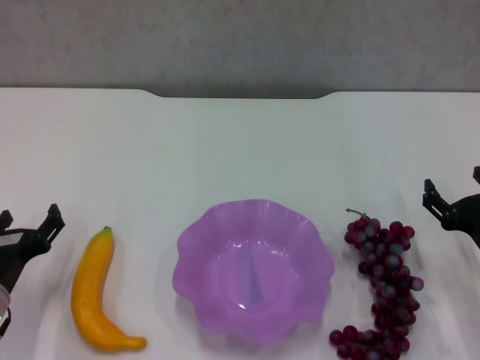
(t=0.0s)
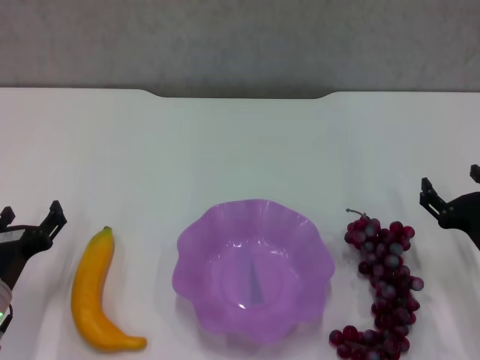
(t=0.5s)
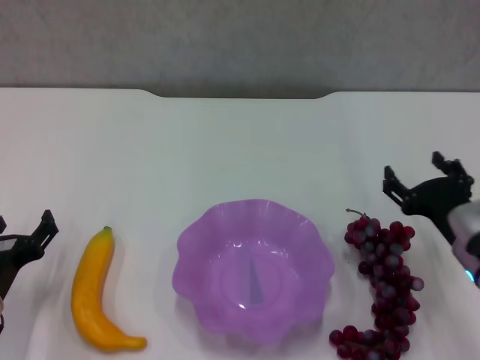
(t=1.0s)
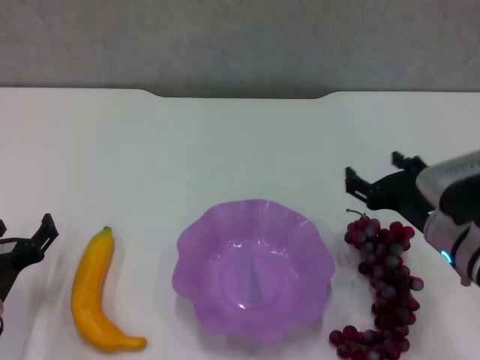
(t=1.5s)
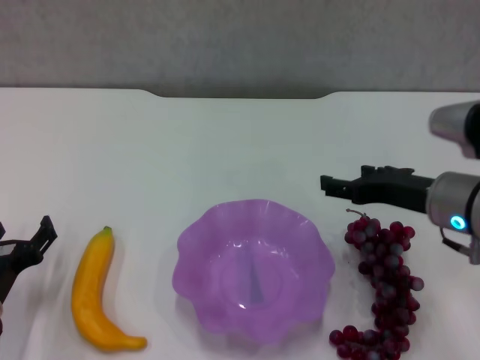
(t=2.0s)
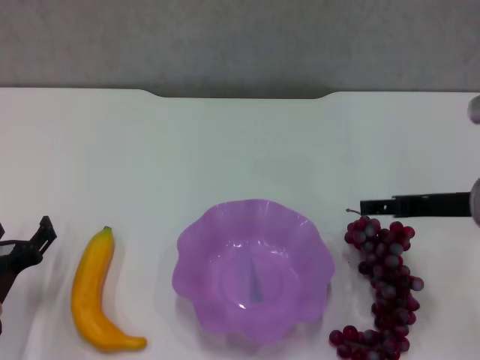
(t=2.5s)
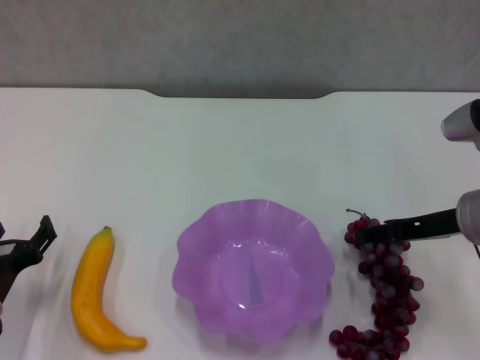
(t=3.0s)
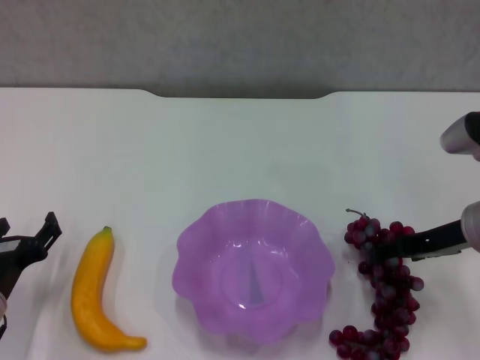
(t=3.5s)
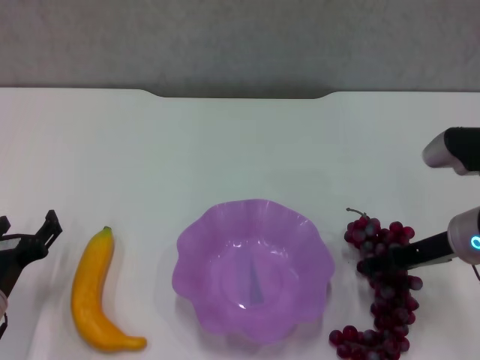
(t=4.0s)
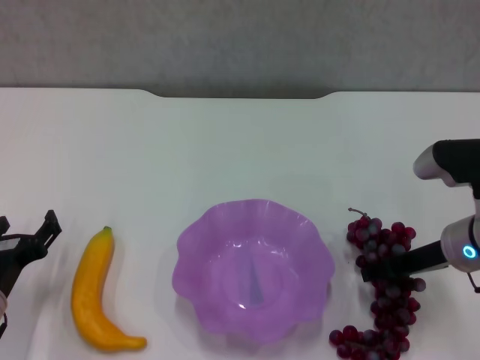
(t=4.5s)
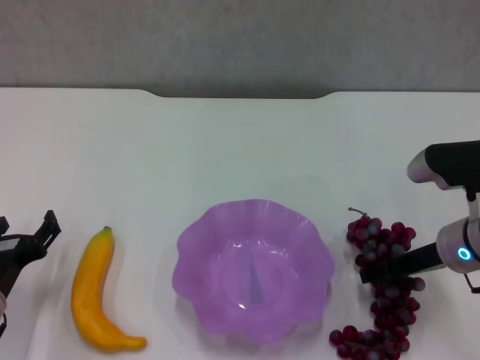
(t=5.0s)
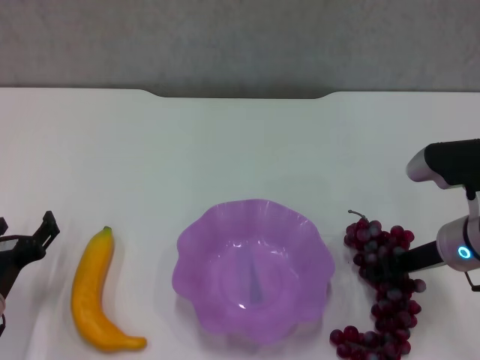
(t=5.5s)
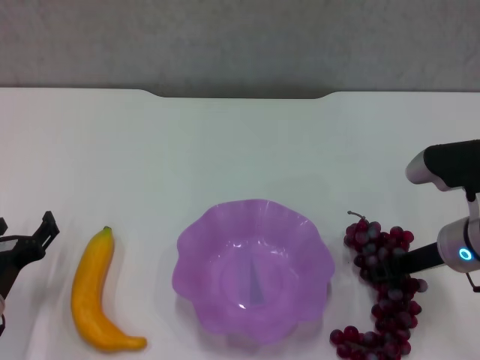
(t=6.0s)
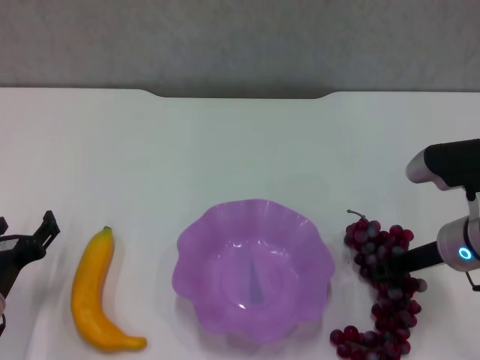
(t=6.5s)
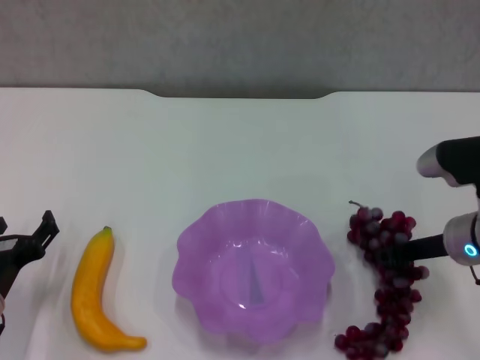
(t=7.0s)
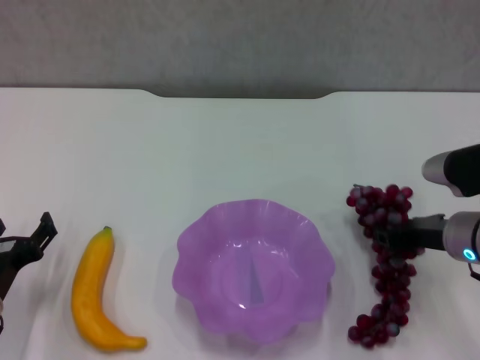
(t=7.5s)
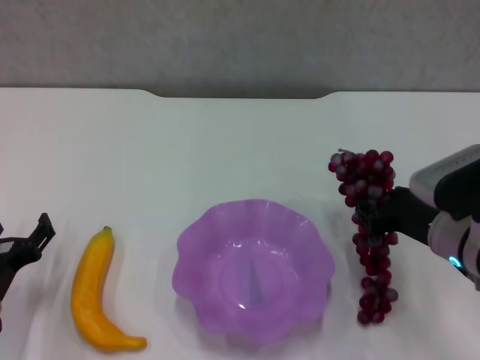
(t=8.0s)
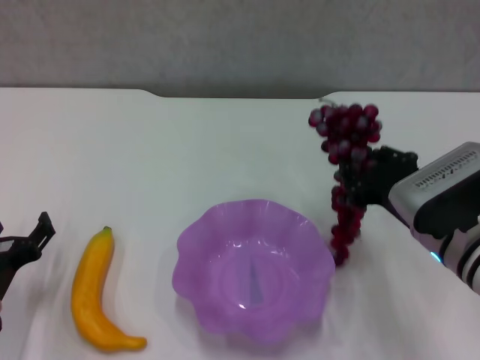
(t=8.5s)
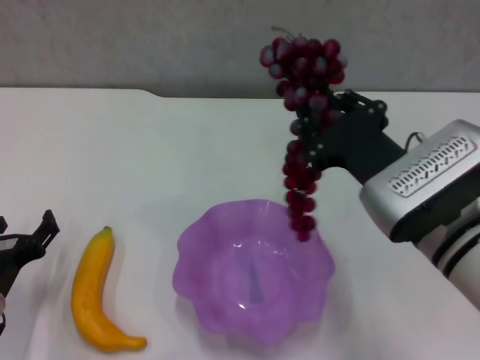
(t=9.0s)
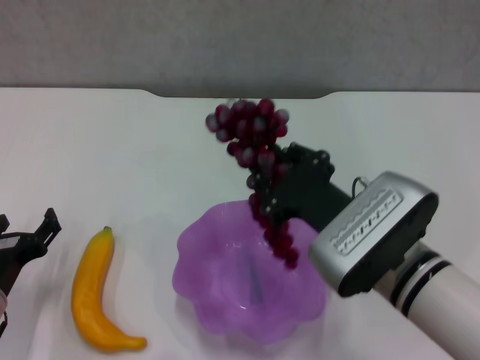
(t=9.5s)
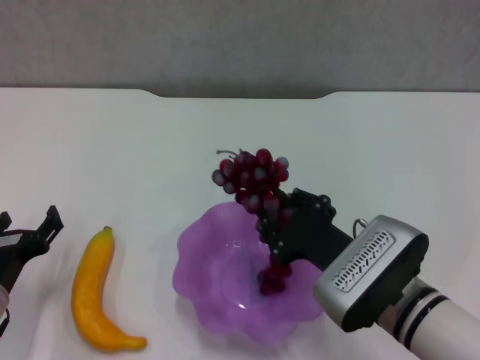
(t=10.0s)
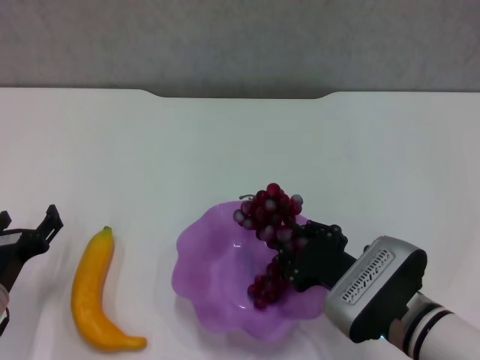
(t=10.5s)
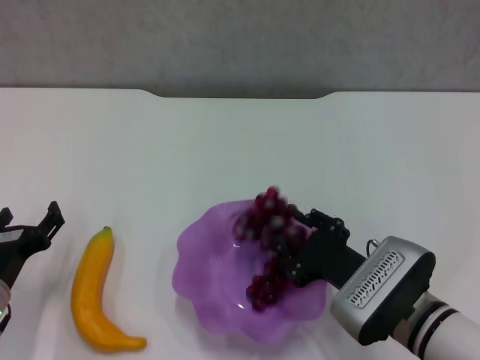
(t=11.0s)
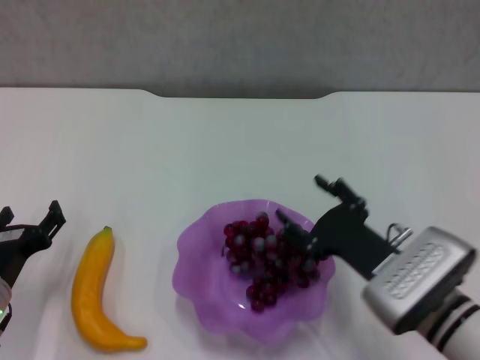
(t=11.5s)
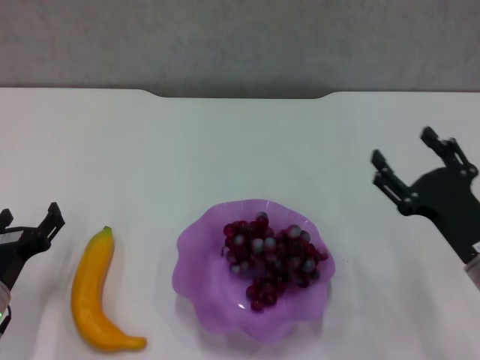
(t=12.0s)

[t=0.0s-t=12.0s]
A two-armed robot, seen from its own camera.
Step, t=0.0s to t=5.5s: Grasp the grape with right gripper.
Step, t=6.0s to t=11.5s: Place the grape in the purple plate with right gripper.
t=0.0s to t=2.0s: The right gripper goes some 15 cm upward and to the left.
t=2.0s to t=4.0s: The right gripper ends up about 5 cm from where it was.
t=4.0s to t=6.0s: The right gripper closes.
t=8.0s to t=10.0s: The right gripper shifts roughly 10 cm to the left and backward.
t=10.0s to t=12.0s: The right gripper travels to the right by roughly 10 cm, and opens its fingers.

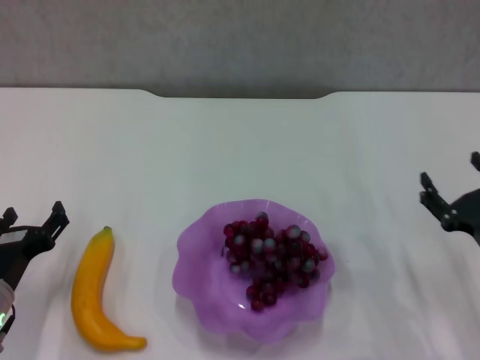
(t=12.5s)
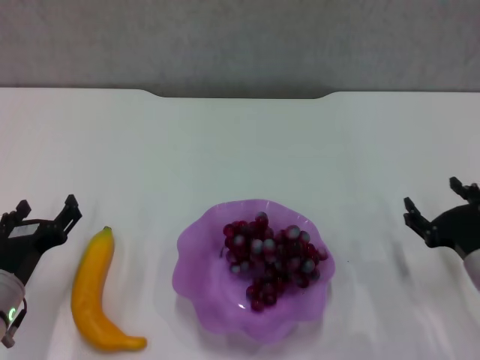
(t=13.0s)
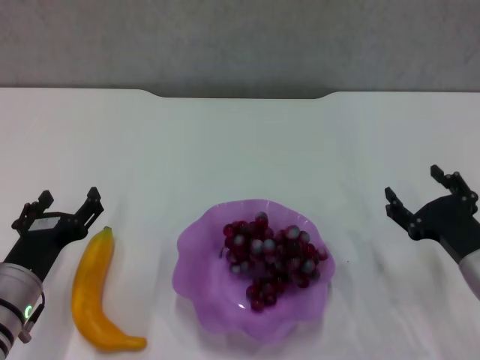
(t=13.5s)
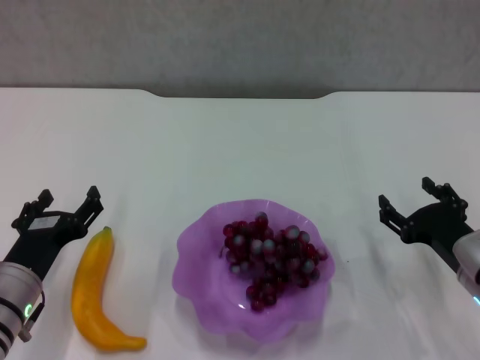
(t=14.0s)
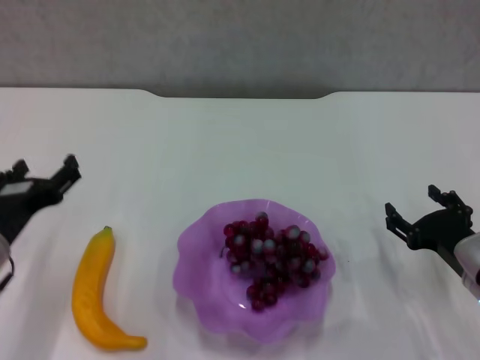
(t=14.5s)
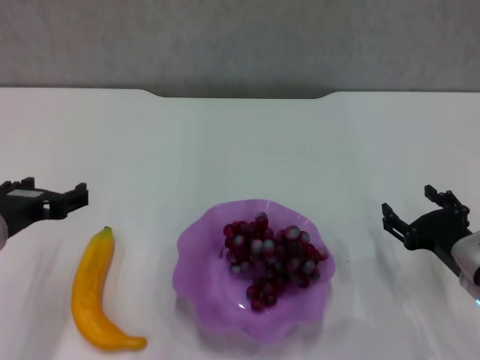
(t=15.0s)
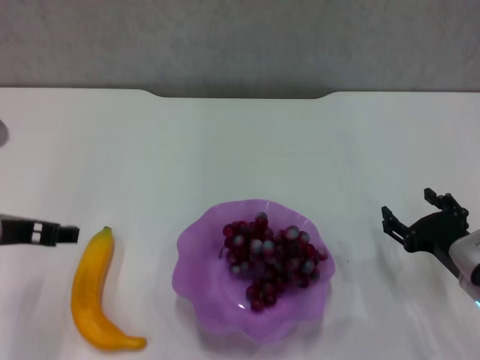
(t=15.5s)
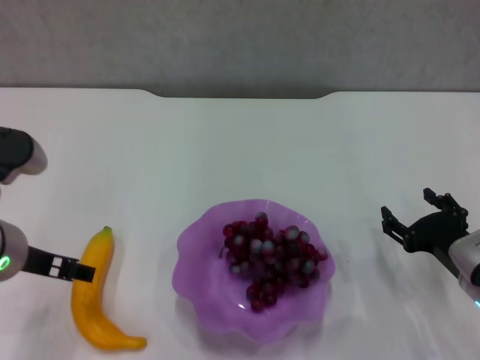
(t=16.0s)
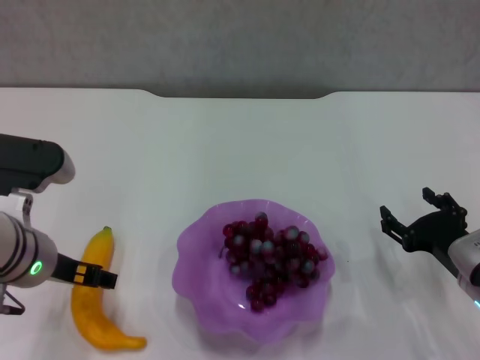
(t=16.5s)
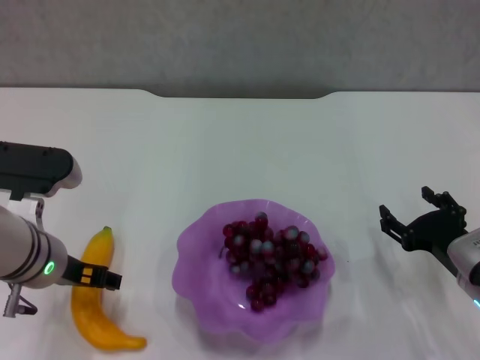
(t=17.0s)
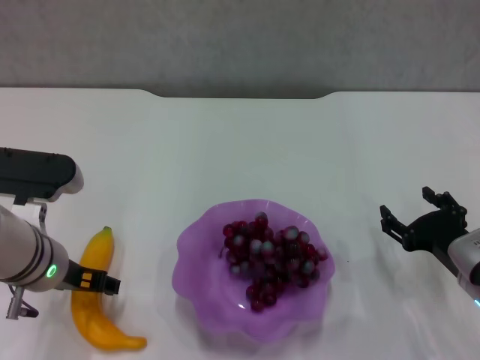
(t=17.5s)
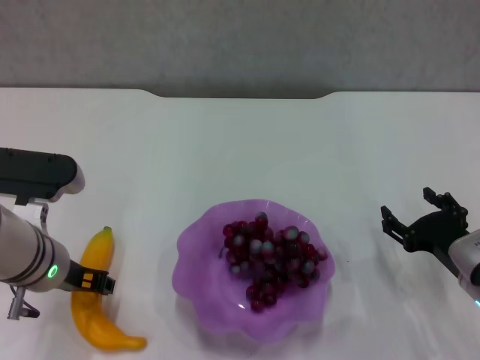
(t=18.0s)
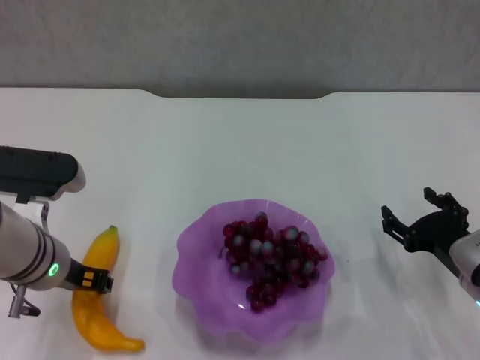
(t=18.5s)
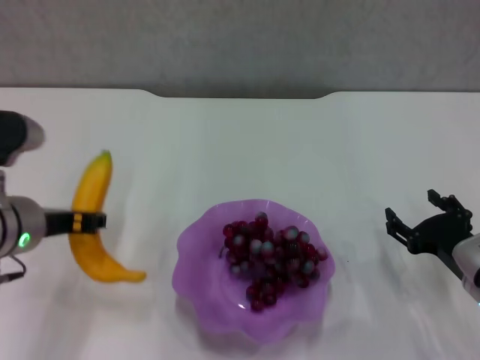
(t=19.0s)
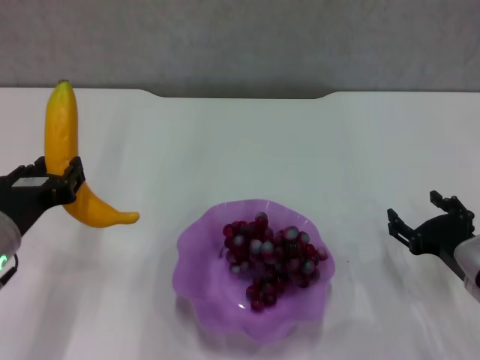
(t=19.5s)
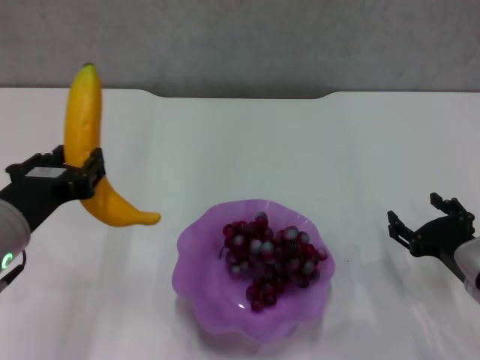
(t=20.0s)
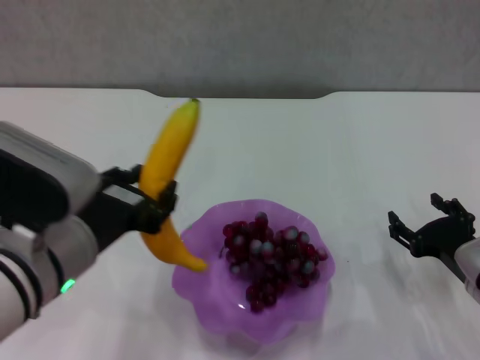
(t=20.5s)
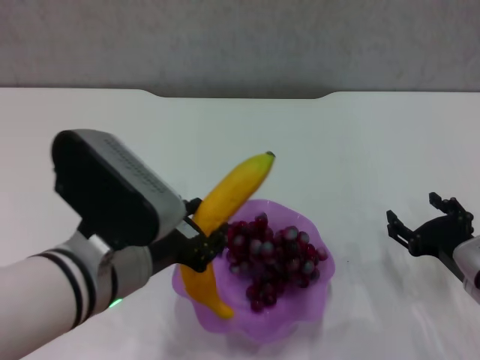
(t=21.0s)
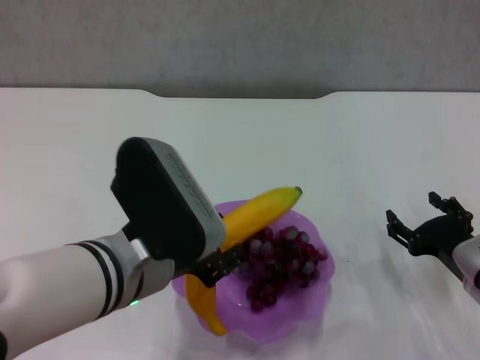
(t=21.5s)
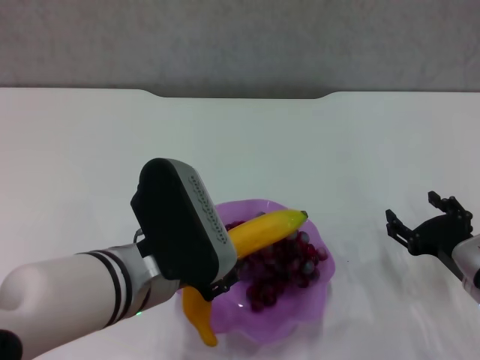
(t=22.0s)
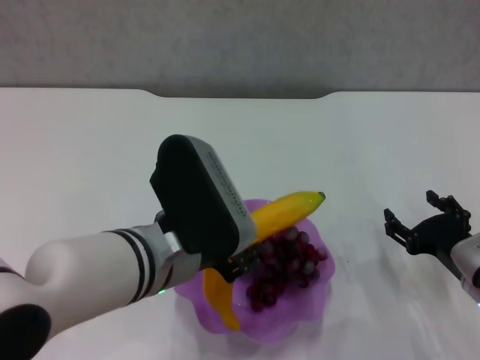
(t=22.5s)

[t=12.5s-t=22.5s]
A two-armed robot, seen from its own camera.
Step, t=12.5s to t=18.0s: Grasp the banana with left gripper.
t=12.5s to t=14.5s: The left gripper heads upward, covering about 10 cm.
t=14.5s to t=16.5s: The left gripper shifts by some 5 cm.
t=16.5s to t=18.5s: The left gripper closes its fingers.
t=18.5s to t=20.5s: The left gripper heads backward and upward, covering some 10 cm.
t=20.5s to t=22.5s: The left gripper goes about 10 cm to the right.

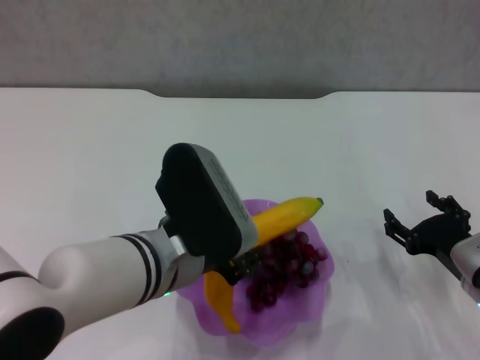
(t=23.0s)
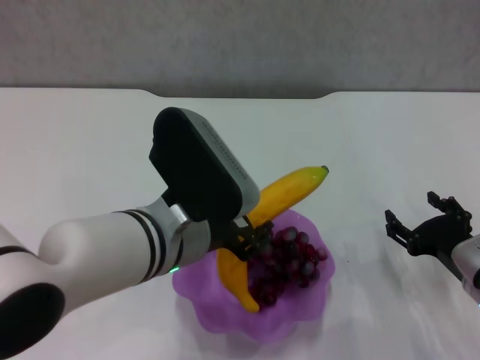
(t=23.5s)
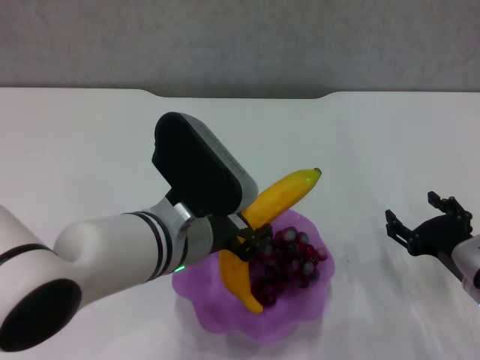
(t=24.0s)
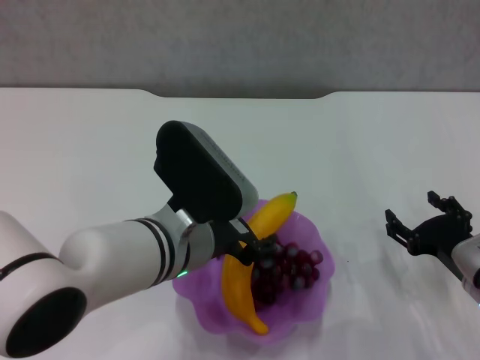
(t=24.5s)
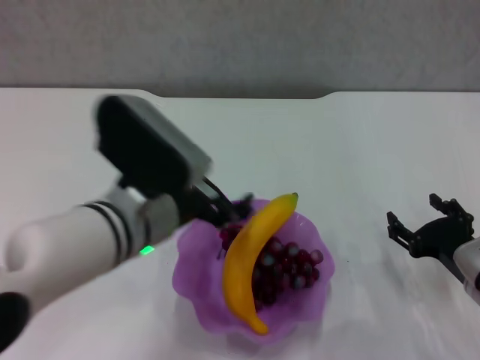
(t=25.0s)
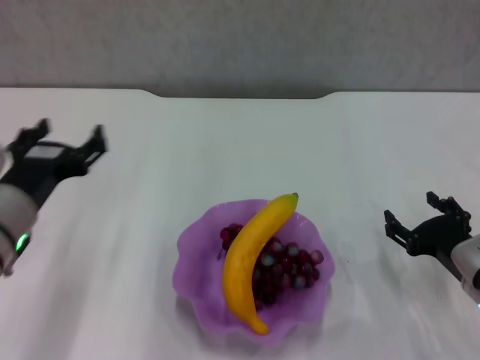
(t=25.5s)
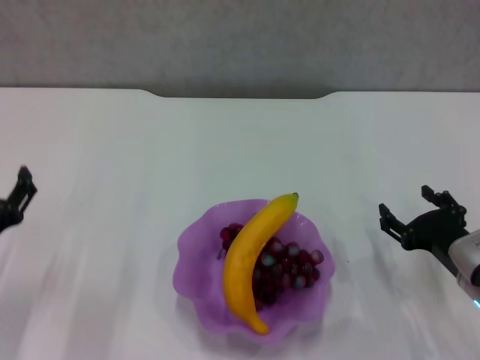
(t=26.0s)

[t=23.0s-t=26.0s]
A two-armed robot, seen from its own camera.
t=23.0s to t=24.5s: There are only small adjustments of the grippers.
t=24.5s to t=26.0s: The left gripper heads to the left and downward, covering about 25 cm, and opens its fingers.
